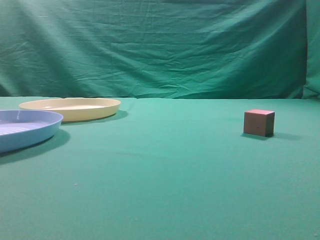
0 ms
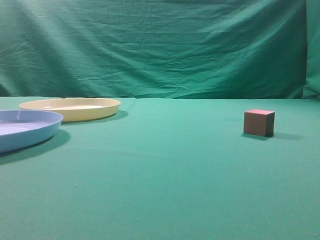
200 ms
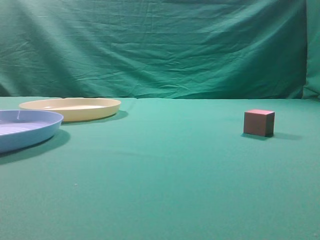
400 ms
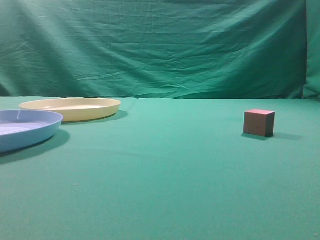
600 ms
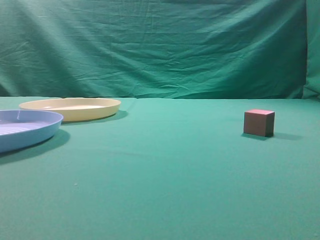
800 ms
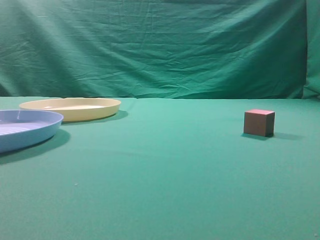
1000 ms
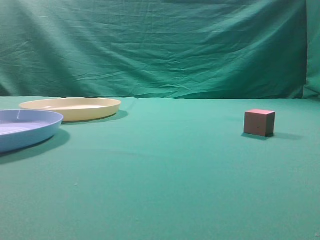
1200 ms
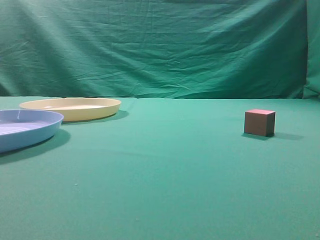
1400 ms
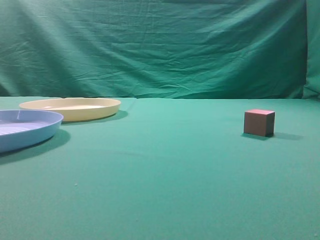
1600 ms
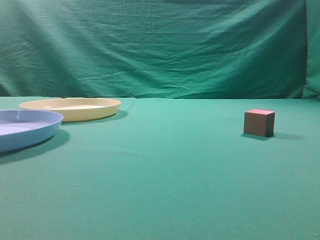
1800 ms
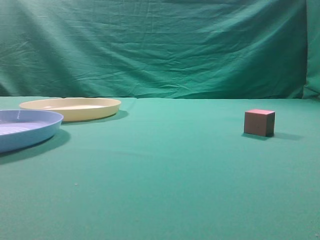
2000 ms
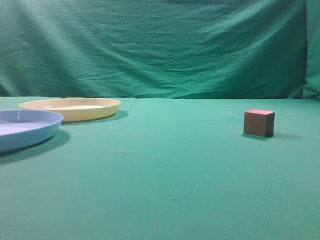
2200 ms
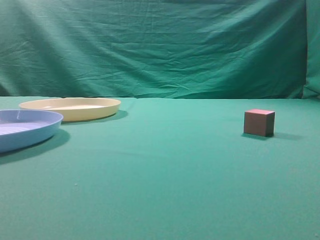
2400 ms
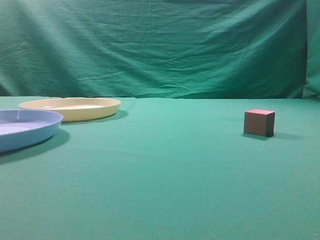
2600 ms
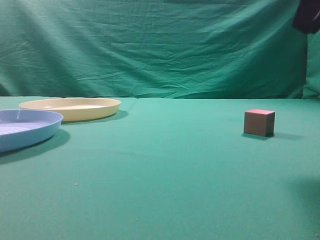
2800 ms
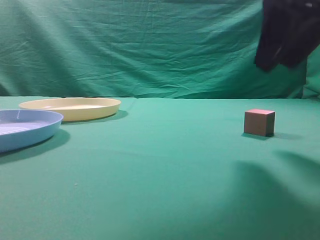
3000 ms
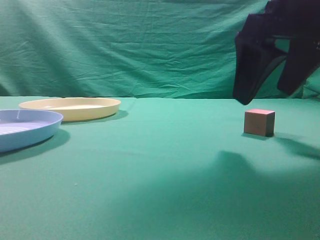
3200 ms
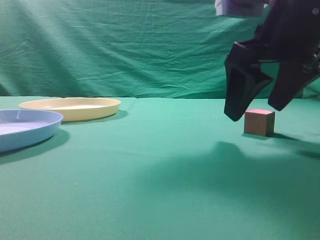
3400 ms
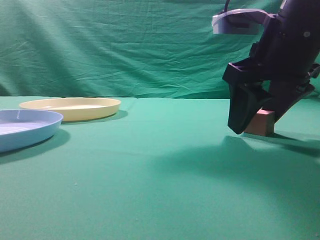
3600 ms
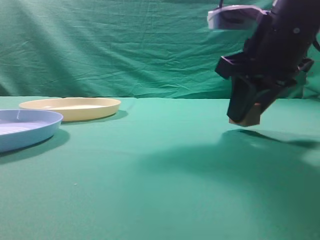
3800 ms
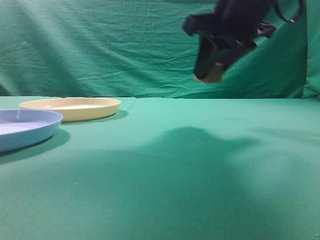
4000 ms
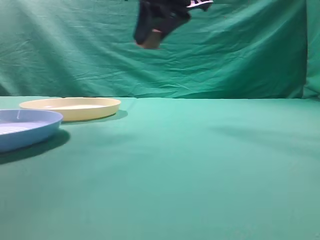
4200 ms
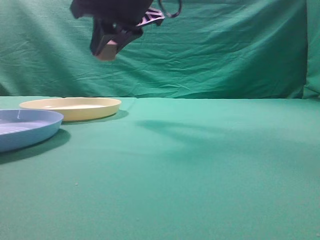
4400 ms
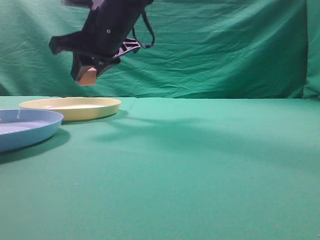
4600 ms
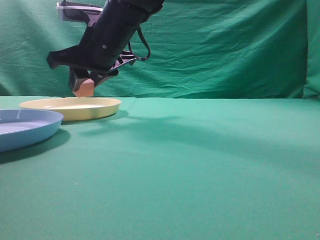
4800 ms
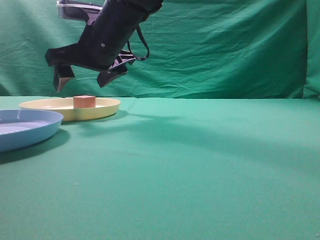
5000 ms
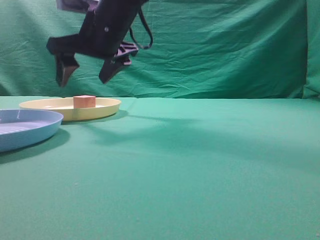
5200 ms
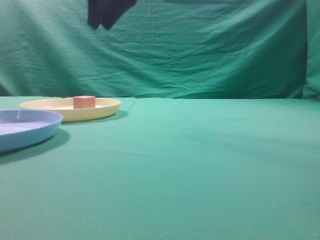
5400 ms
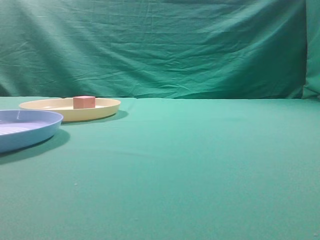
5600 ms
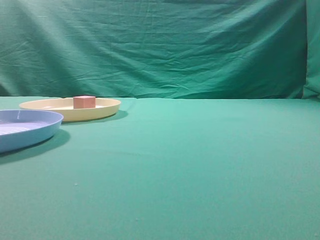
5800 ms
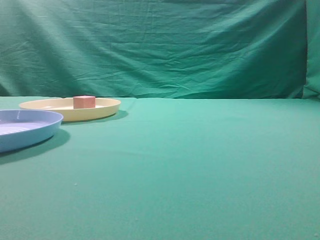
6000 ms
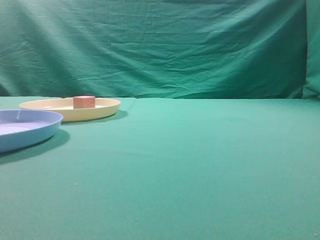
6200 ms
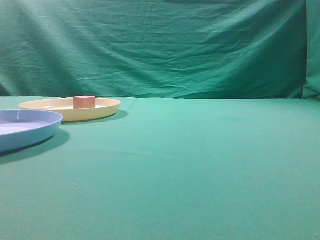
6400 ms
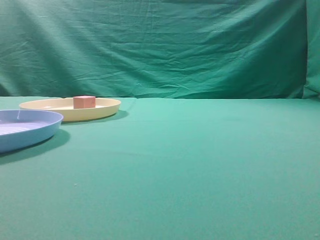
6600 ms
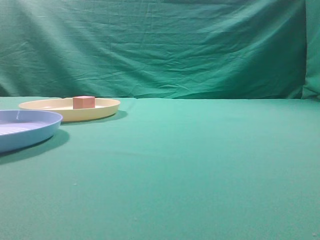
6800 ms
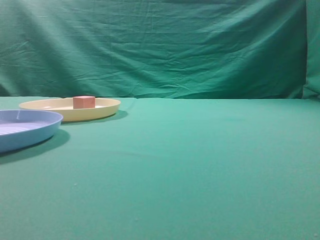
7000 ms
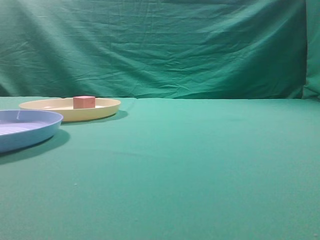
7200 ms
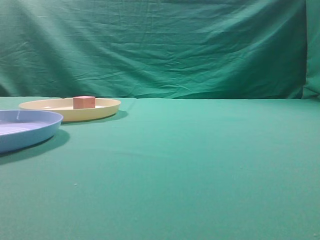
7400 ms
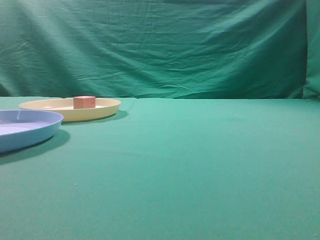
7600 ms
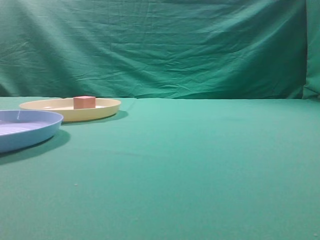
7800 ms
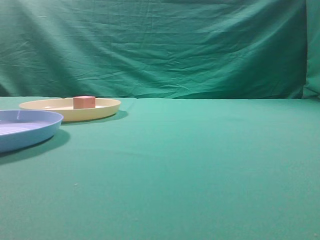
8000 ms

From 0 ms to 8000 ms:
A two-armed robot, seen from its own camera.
Task of the whole recording: pick up the cube block from the table and put it on the plate.
Step, from 0 ms to 3800 ms: Grasp the small cube on the table.
Step, from 4000 ms to 5200 ms: Place it into the yellow plate.
From 1600 ms to 3200 ms: The right gripper moves forward and to the left, about 25 cm, and opens its fingers.
From 3200 ms to 4800 ms: The right gripper shifts about 30 cm to the left and forward, and closes.
From 4800 ms to 6400 ms: The right gripper shifts roughly 40 cm backward, to the right and upward, and closes up.
